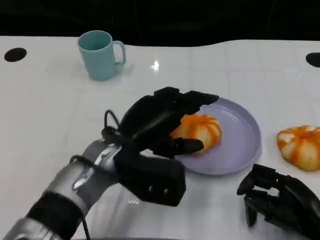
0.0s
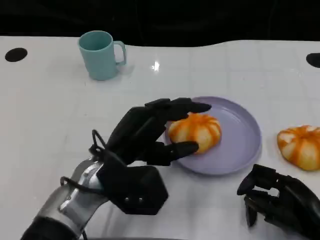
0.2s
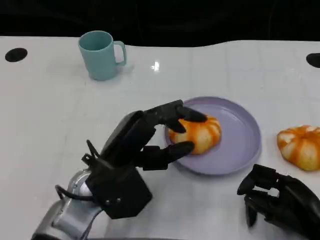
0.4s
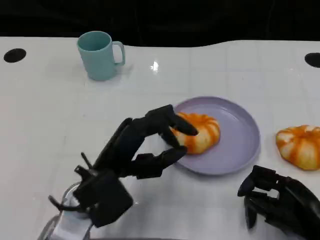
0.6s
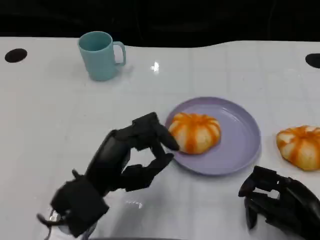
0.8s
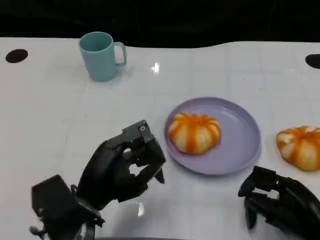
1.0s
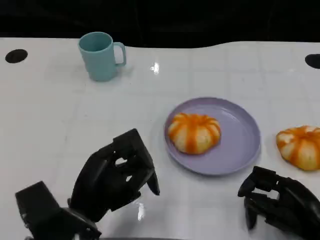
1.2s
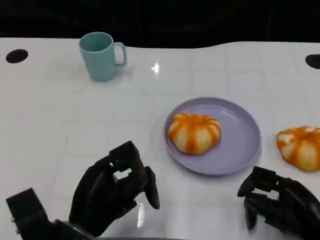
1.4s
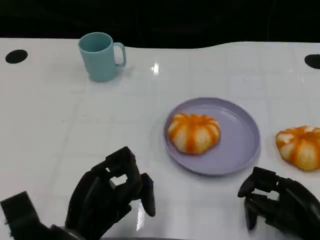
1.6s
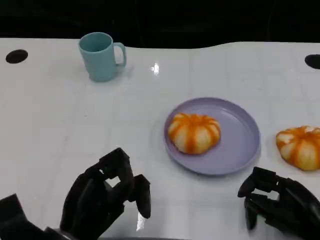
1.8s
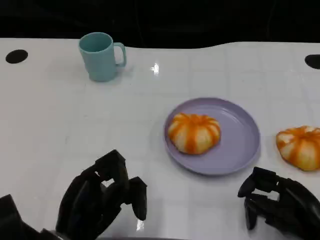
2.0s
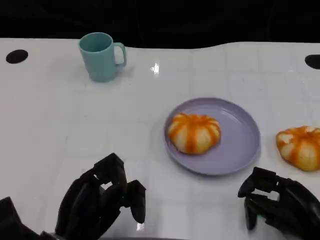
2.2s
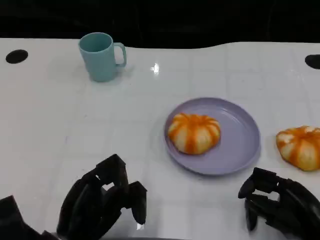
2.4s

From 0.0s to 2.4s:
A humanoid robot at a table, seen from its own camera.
Task of the whole recording: Grasp the bread from the table and place it into the plate.
From 0.0s to 1.2s: The left hand goes approximately 10 cm backward and to the left.

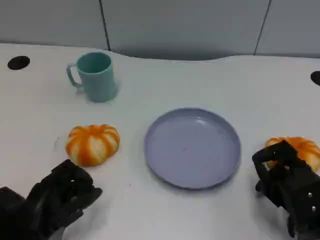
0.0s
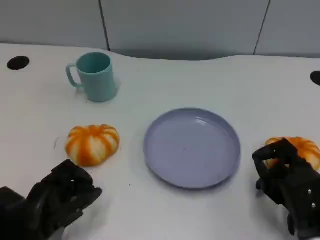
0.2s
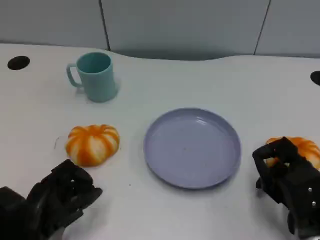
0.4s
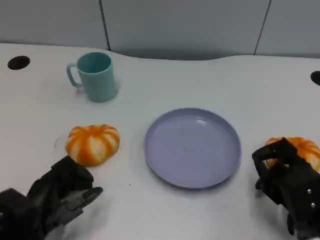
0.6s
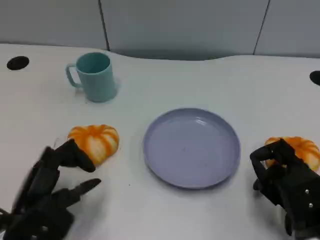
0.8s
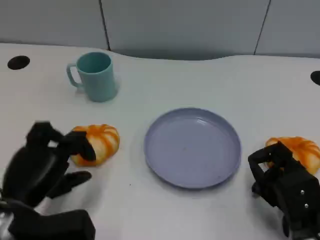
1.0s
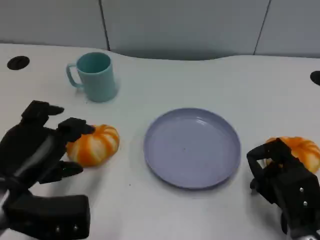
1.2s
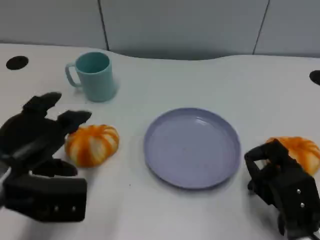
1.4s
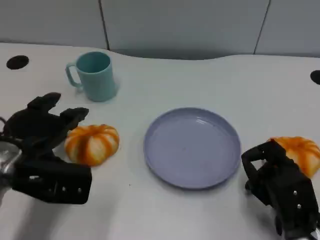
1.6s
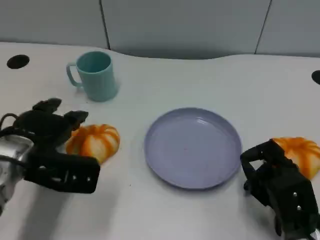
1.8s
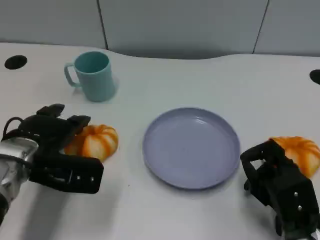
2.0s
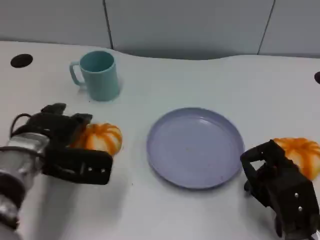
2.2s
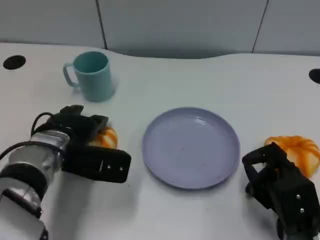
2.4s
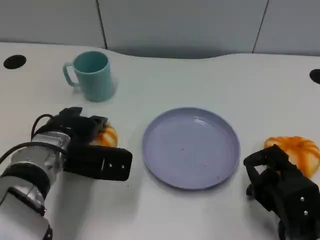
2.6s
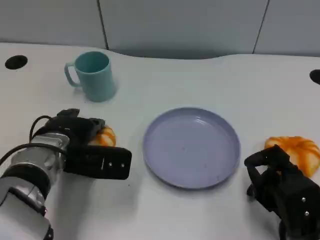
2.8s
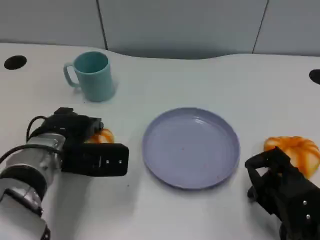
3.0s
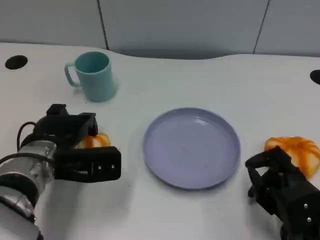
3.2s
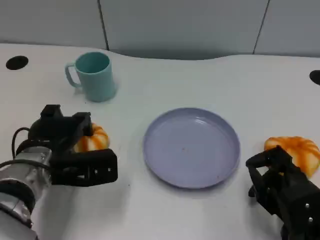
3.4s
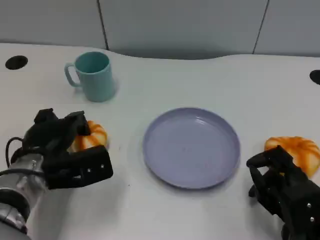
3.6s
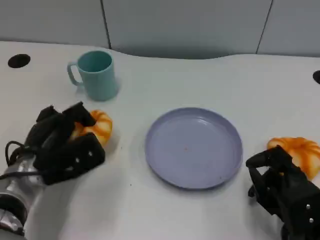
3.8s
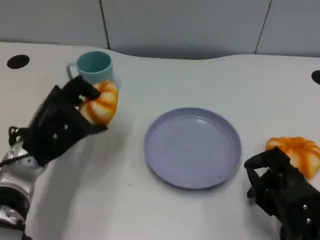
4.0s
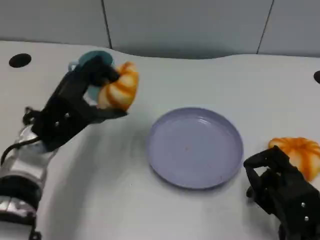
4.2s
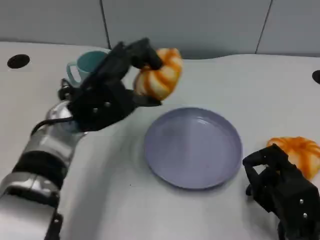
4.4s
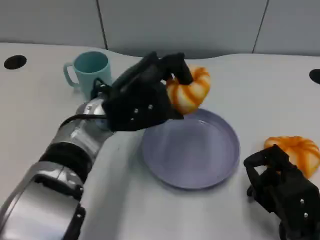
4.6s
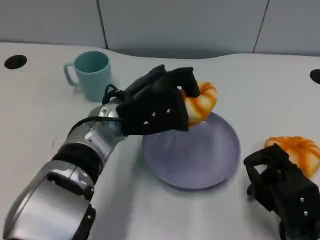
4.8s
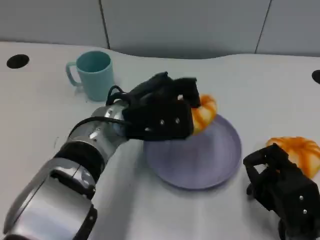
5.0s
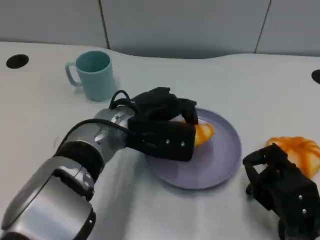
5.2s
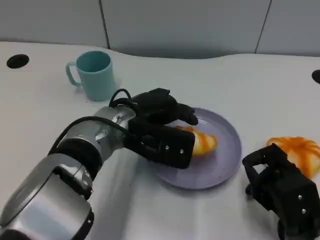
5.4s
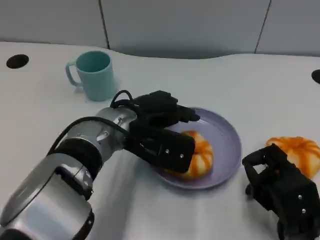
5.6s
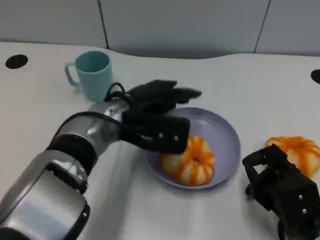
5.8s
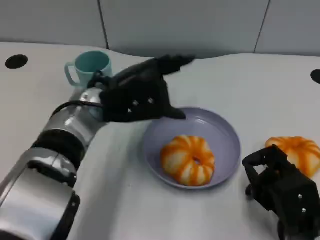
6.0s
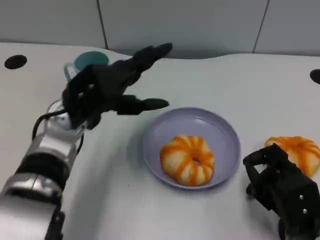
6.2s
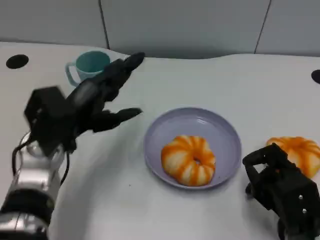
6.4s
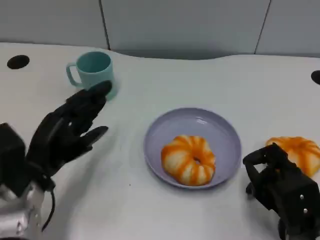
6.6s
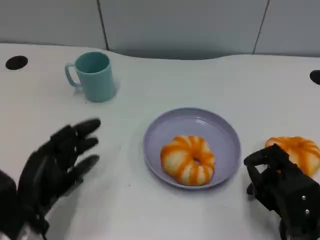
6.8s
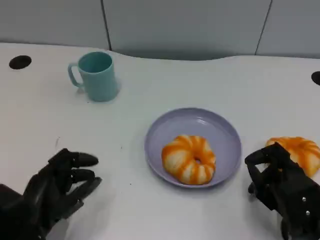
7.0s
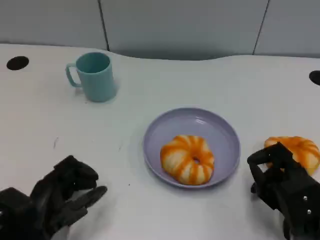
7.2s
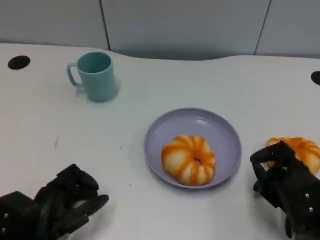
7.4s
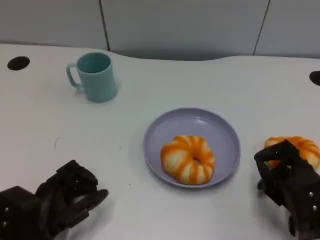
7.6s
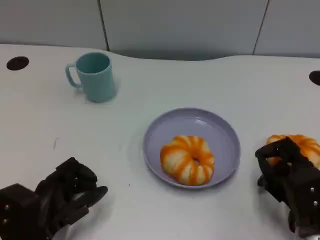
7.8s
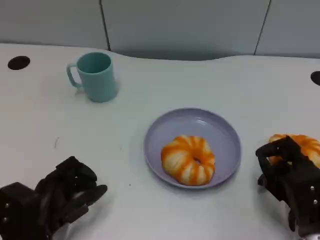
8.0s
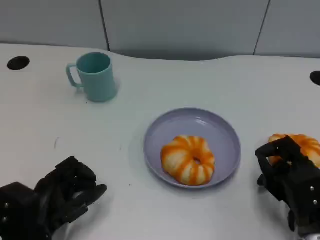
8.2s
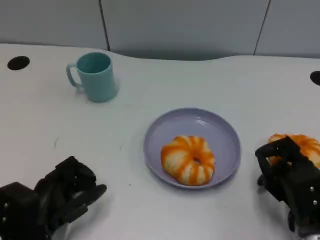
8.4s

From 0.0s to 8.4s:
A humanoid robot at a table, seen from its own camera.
Task of the whole recording: Grasp the bread from the table and place it into the plate.
From 0.0s to 1.4s: The left hand shifts some 15 cm upward and forward.
From 1.4s to 2.8s: The left hand moves forward and to the right, approximately 10 cm.
From 4.2s to 5.6s: The left hand heads to the right, covering approximately 10 cm.
From 5.6s to 7.0s: The left hand heads to the left, backward and downward, covering roughly 20 cm.
From 7.0s to 8.4s: The hands stay close to where they were, moving slightly.

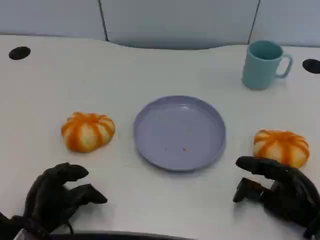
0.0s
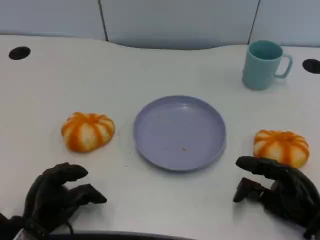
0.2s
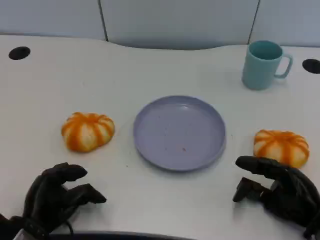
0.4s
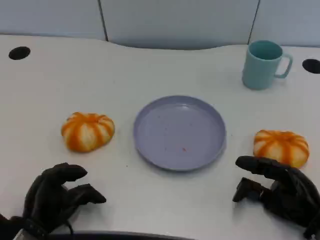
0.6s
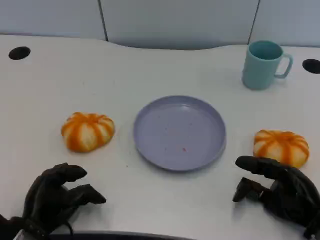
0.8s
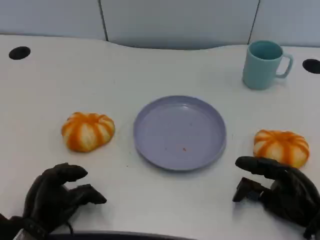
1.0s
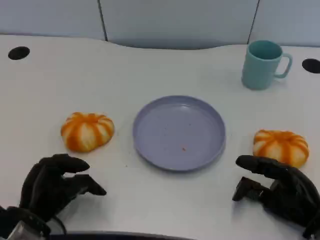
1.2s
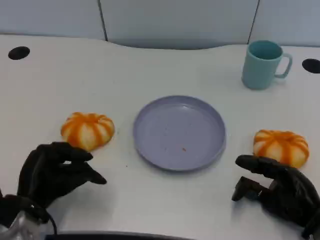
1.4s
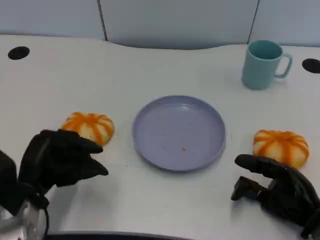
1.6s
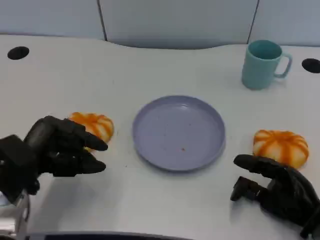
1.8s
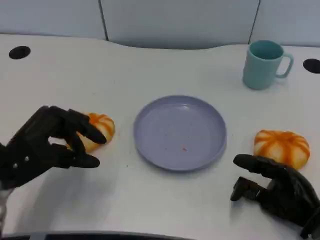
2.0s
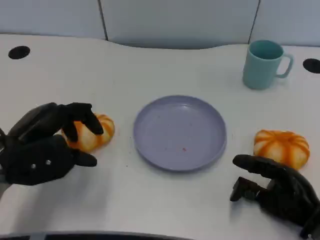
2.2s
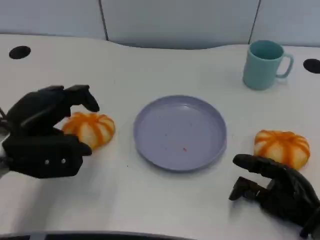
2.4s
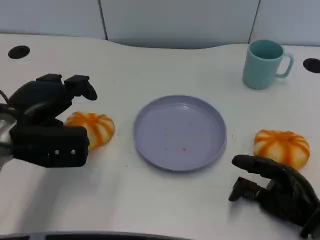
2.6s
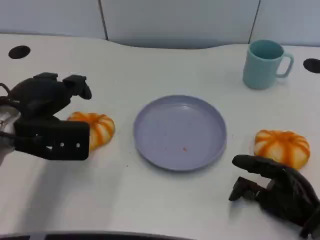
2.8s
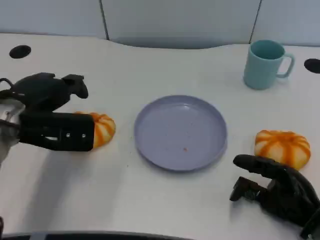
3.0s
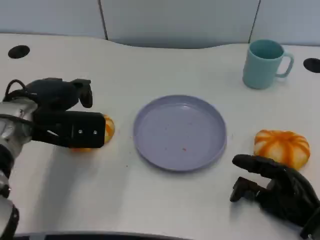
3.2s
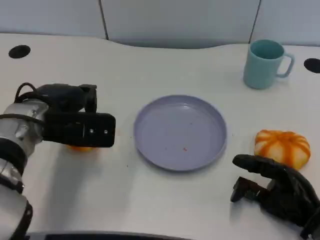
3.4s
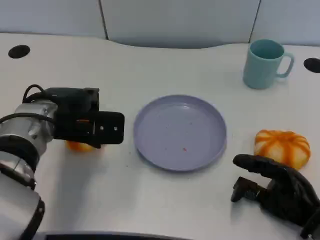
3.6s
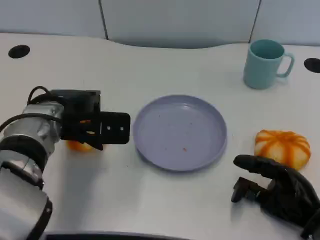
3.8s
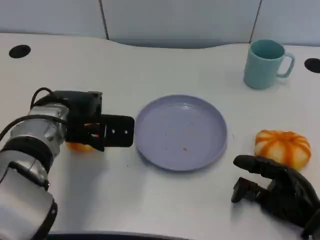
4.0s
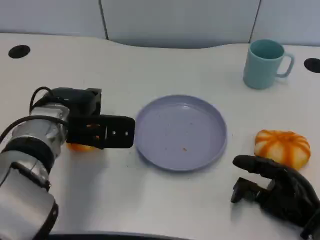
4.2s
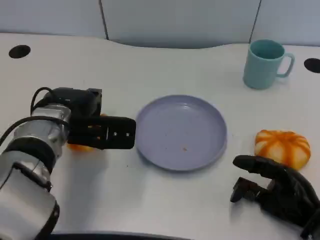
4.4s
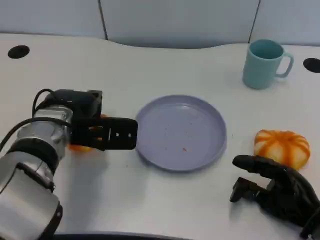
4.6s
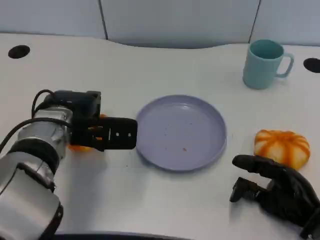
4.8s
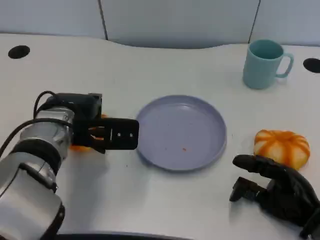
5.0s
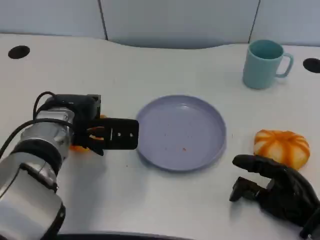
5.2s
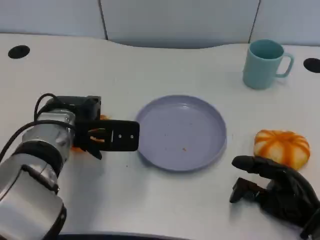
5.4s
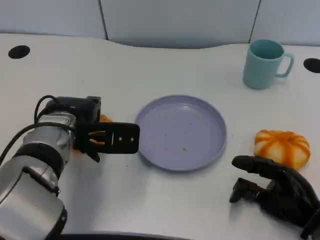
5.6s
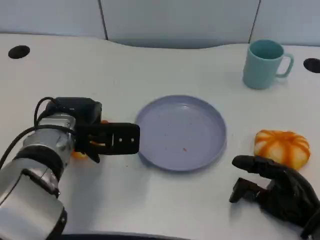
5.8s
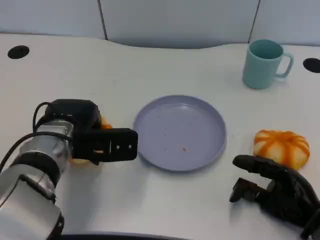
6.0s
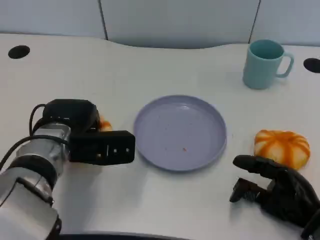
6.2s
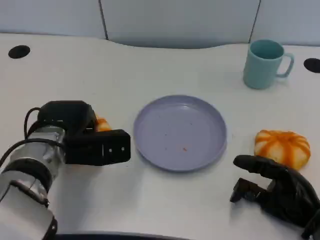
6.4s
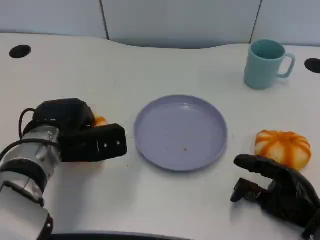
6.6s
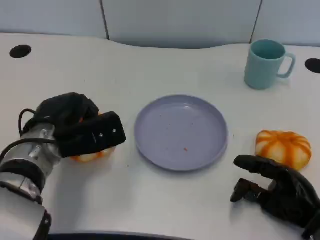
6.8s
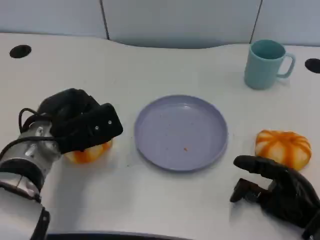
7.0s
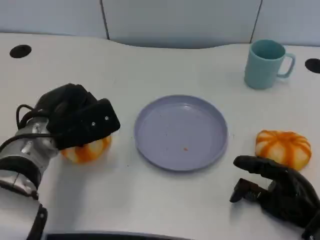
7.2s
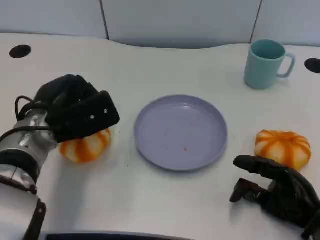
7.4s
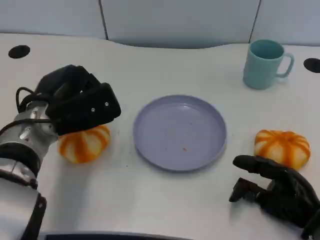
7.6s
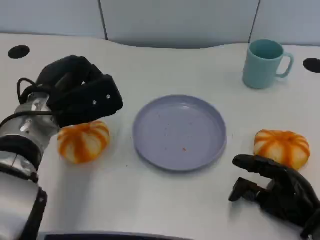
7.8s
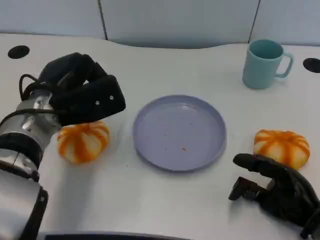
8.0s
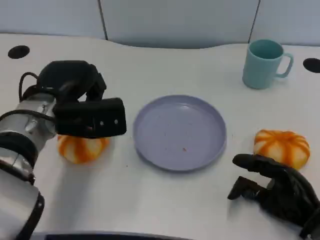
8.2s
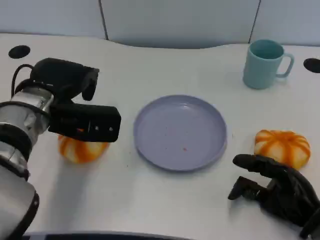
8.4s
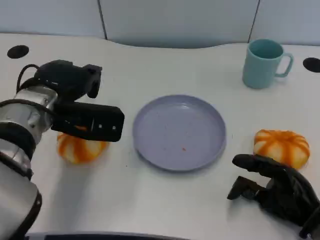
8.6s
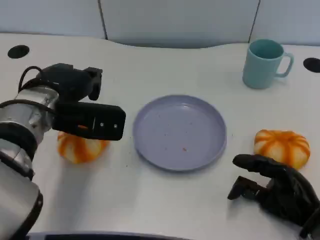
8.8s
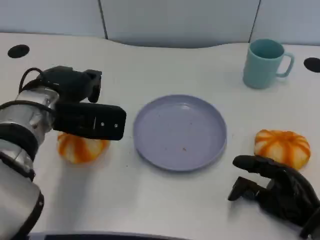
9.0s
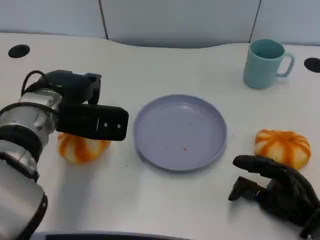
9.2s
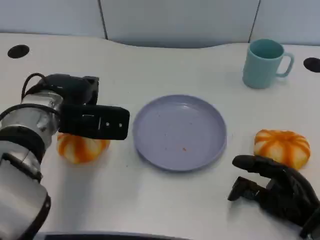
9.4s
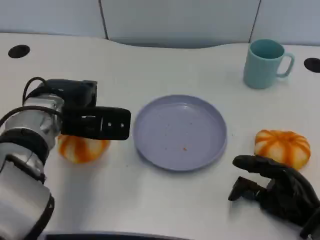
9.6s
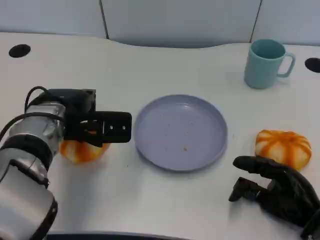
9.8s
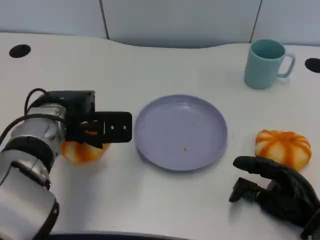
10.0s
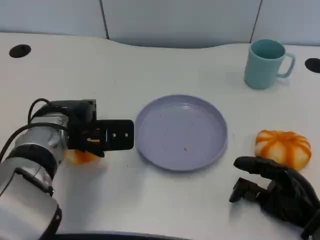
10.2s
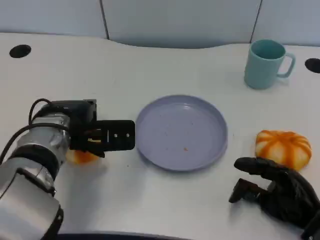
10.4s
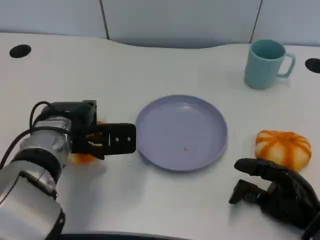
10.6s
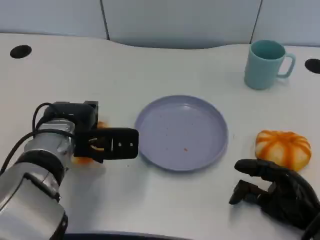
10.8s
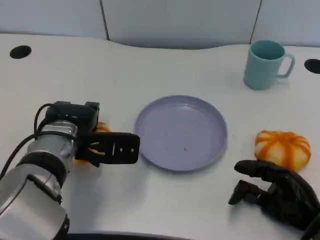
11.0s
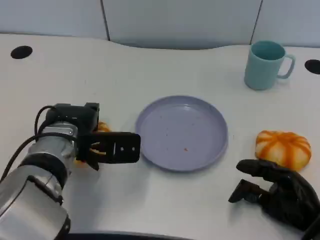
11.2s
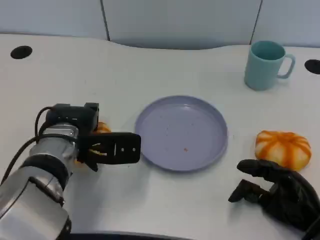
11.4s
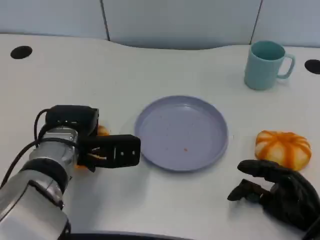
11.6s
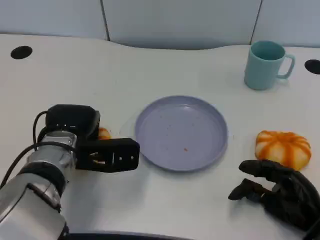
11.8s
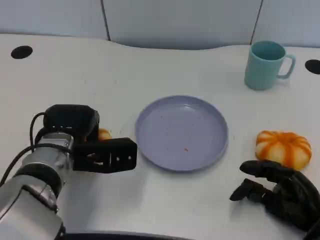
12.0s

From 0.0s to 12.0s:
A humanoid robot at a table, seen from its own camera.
Task of the whole recording: Grasp the bread from the table and place it into the plate.
From 0.0s to 1.6s: The left hand is displaced upward by approximately 5 cm.
From 1.6s to 3.0s: The left hand travels upward and forward by some 10 cm.
From 3.0s to 4.4s: The left hand is displaced to the right by about 5 cm.
From 4.4s to 6.0s: The hands make only small movements.
From 9.0s to 10.4s: The hands make only small movements.
From 10.4s to 12.0s: The hands stay close to where they were, moving slightly.
